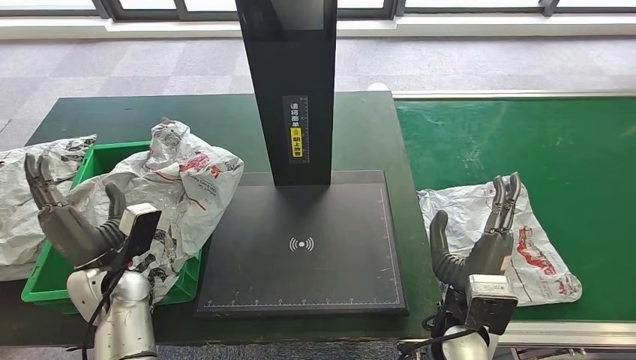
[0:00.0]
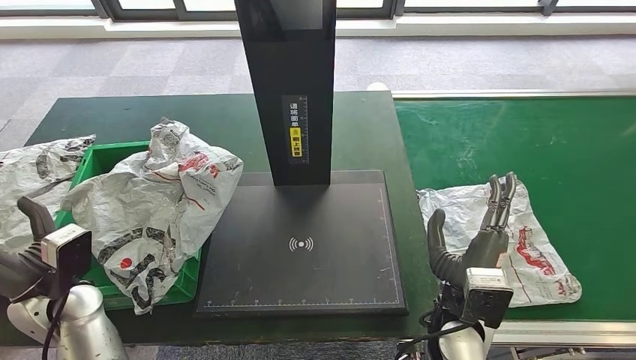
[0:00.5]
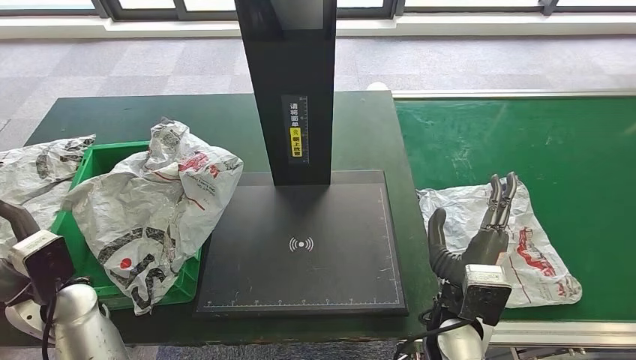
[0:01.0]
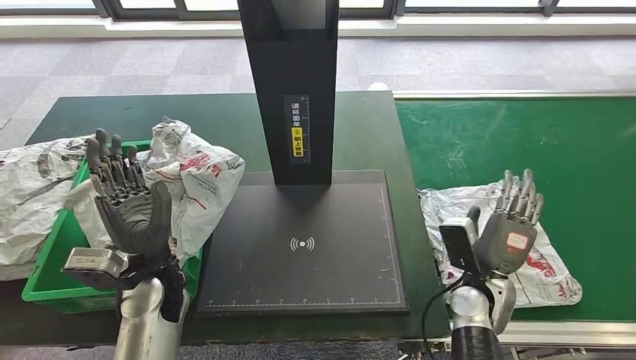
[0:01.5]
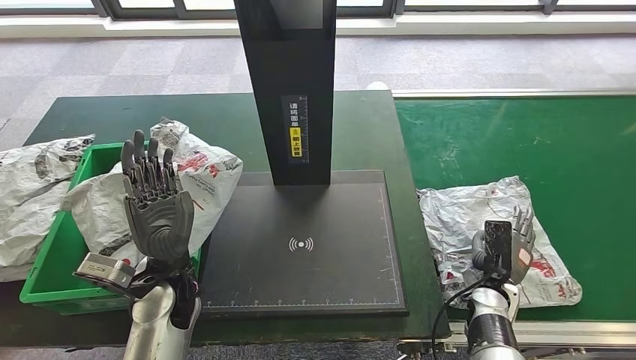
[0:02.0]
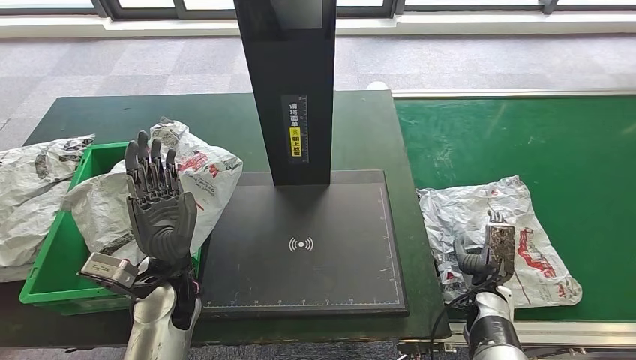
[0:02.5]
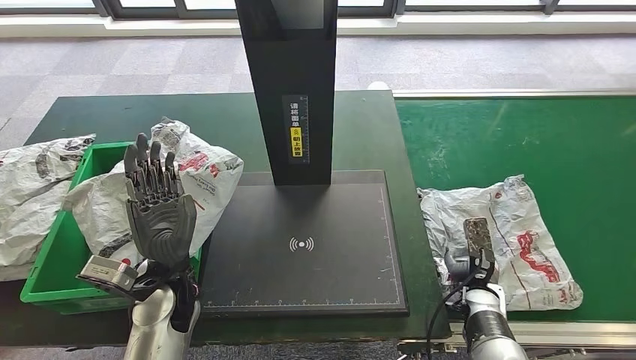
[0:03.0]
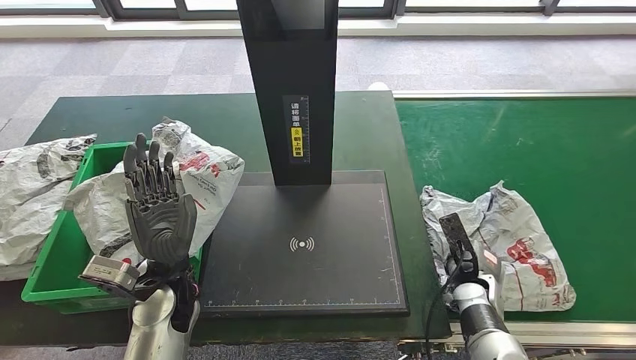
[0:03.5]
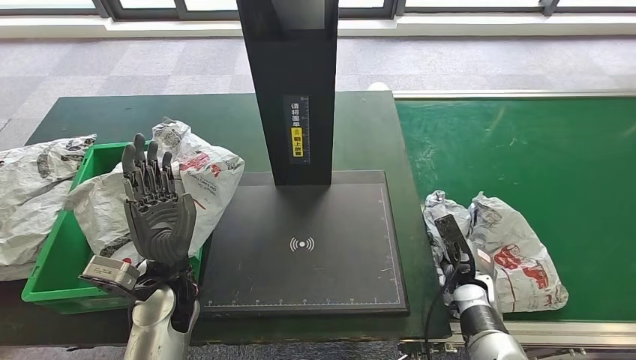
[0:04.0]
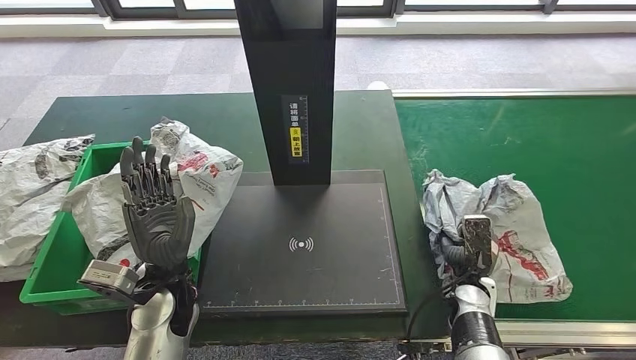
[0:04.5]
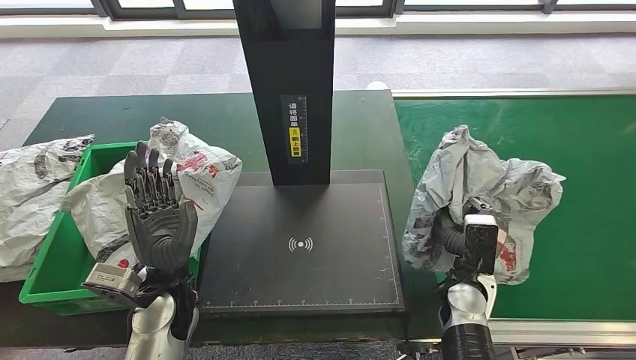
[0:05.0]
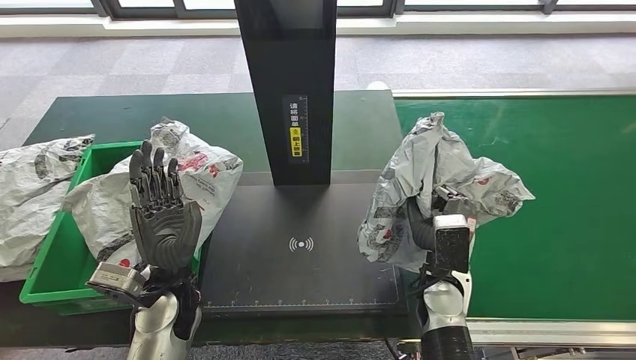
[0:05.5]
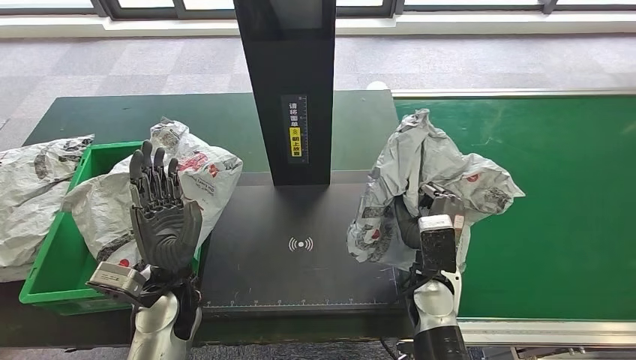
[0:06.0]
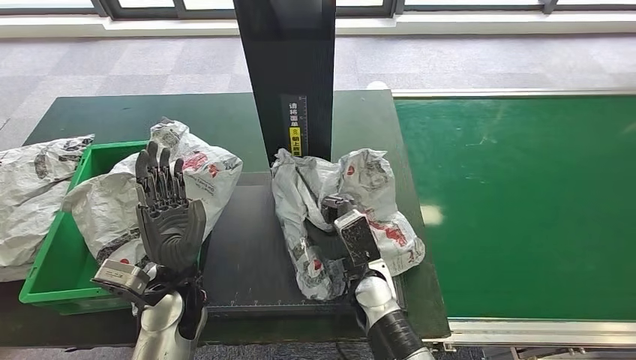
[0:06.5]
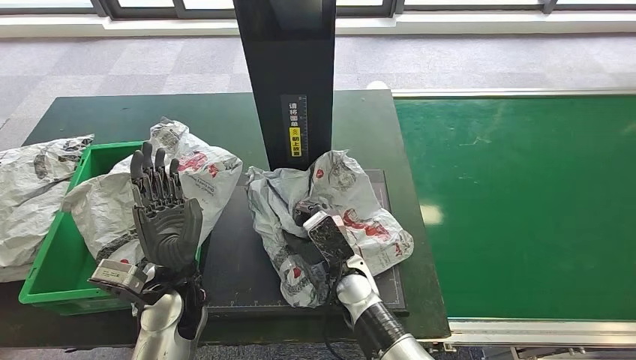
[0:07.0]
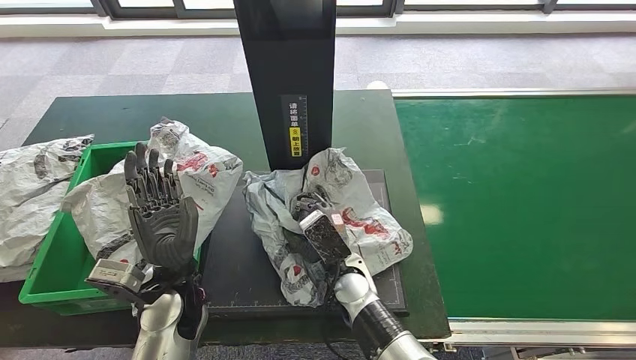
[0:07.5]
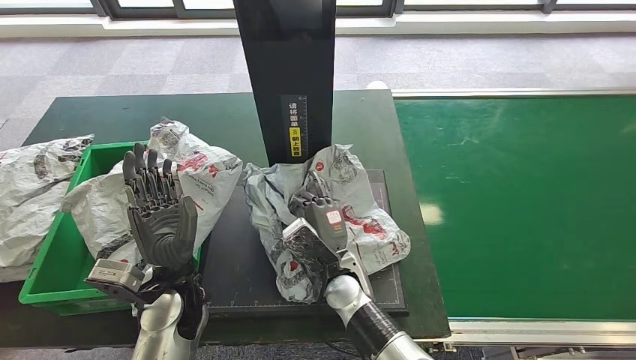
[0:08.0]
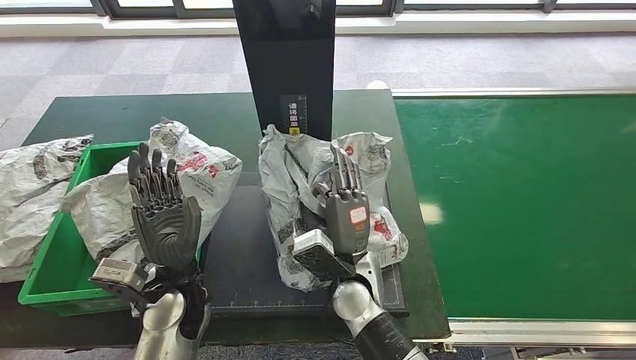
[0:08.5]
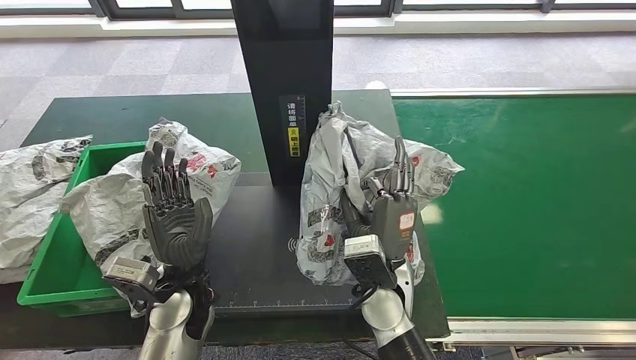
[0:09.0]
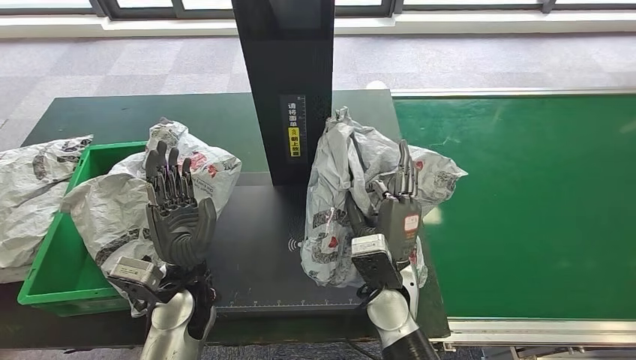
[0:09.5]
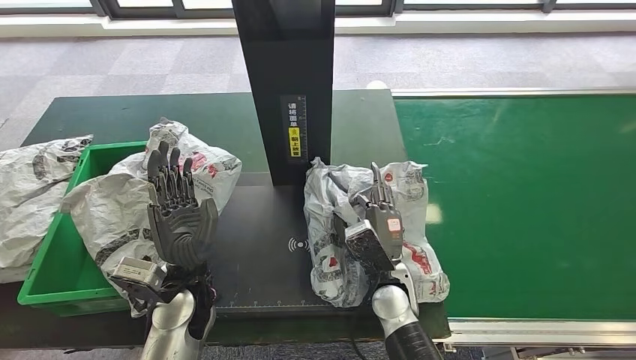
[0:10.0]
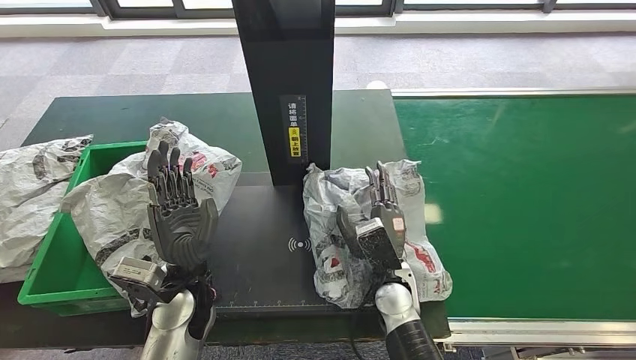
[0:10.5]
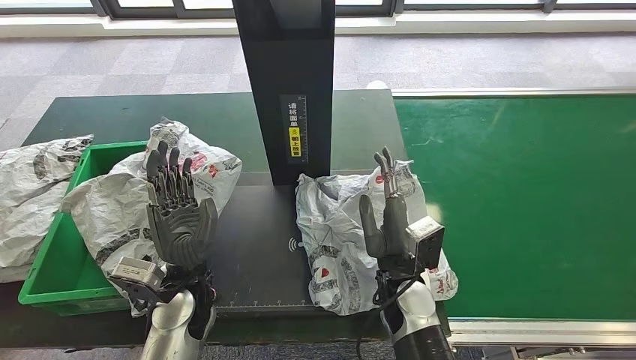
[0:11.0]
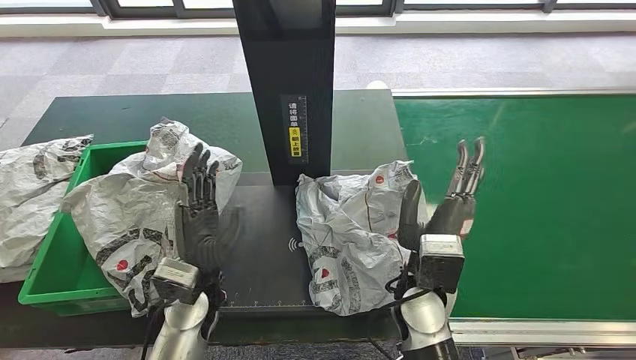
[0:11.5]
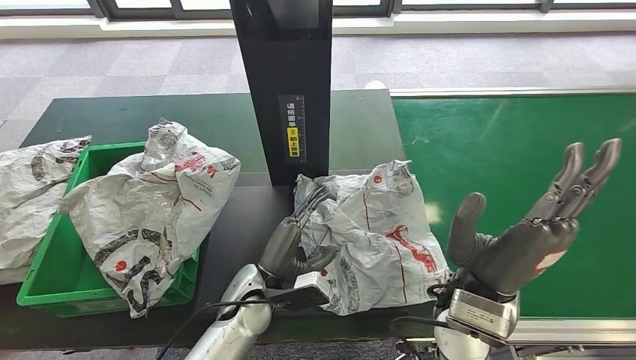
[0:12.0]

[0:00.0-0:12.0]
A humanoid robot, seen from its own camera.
0:00.0 to 0:02.0: The right hand moves downward, to the right and forward, about 20 cm, while the left hand goes roughly 10 cm to the right.
0:06.0 to 0:08.0: The right hand is displaced to the left by approximately 15 cm.
0:08.0 to 0:10.0: The right hand travels to the right by roughly 10 cm.
